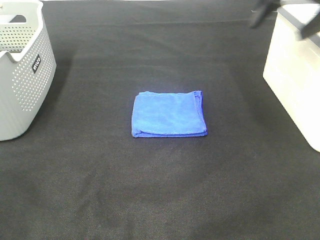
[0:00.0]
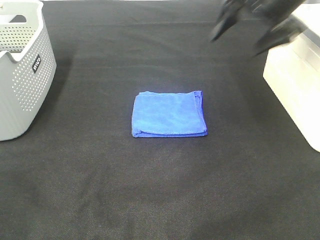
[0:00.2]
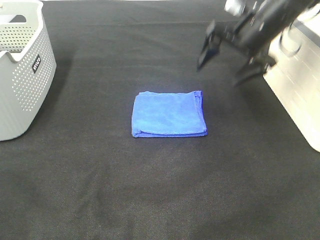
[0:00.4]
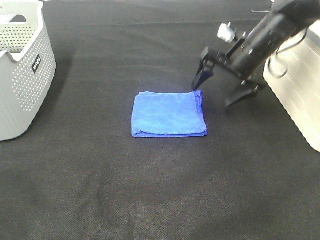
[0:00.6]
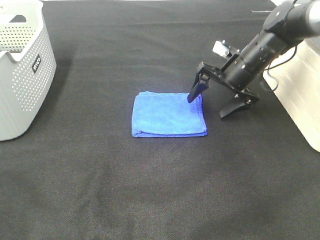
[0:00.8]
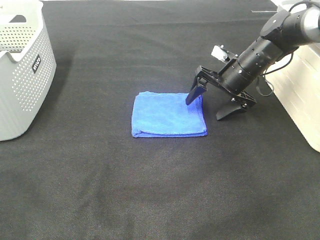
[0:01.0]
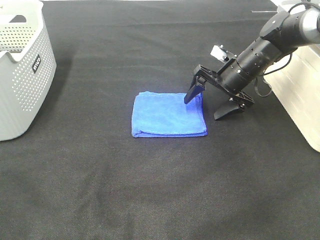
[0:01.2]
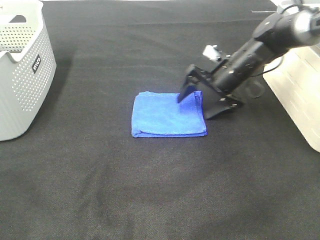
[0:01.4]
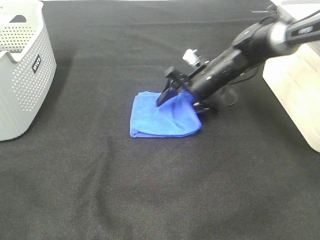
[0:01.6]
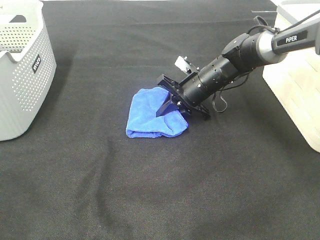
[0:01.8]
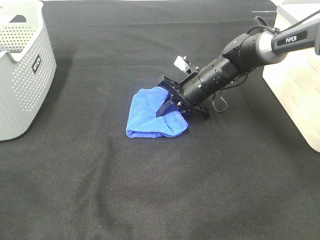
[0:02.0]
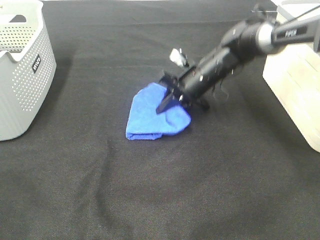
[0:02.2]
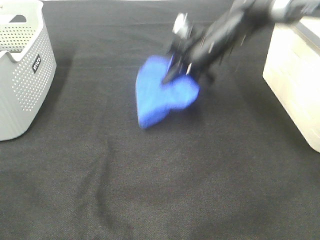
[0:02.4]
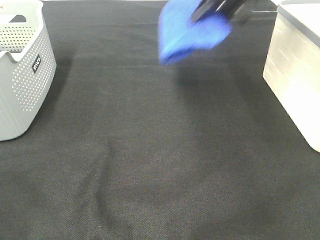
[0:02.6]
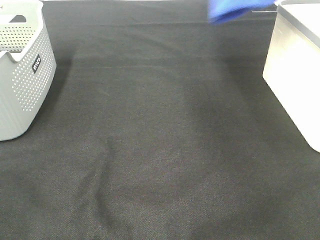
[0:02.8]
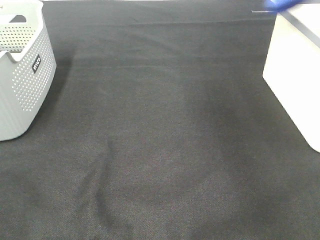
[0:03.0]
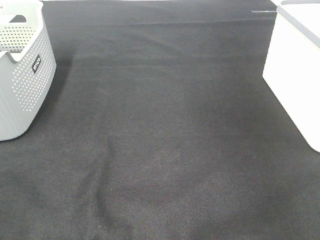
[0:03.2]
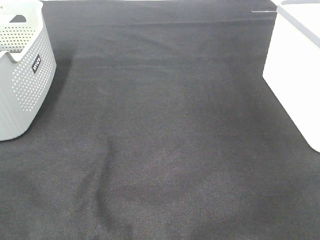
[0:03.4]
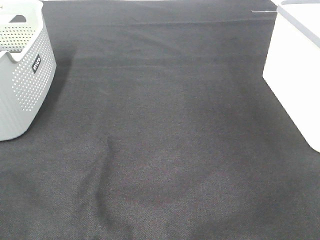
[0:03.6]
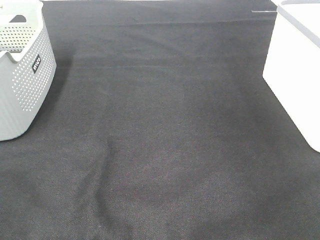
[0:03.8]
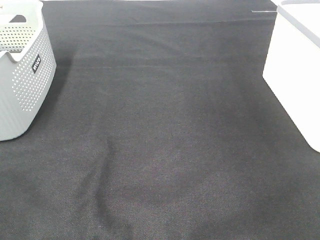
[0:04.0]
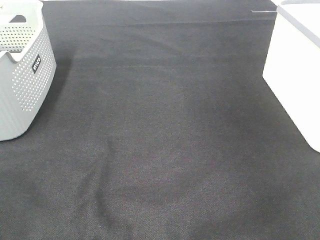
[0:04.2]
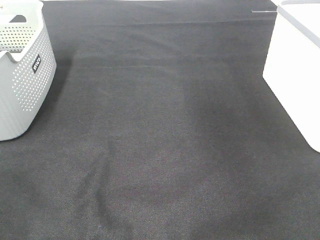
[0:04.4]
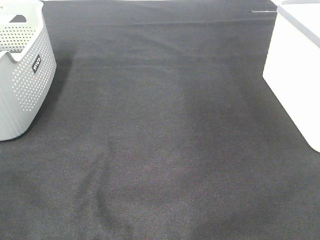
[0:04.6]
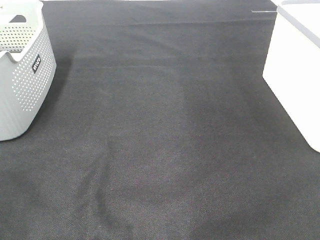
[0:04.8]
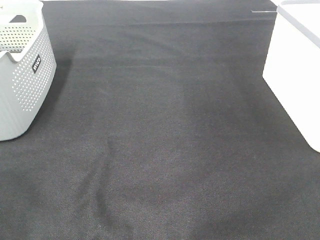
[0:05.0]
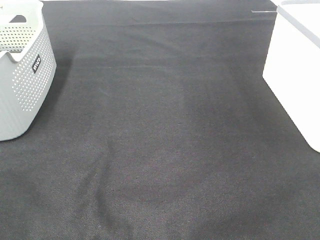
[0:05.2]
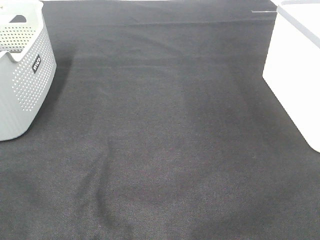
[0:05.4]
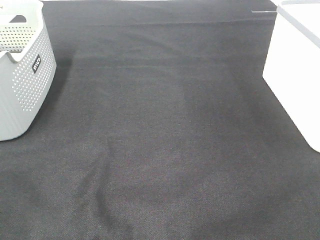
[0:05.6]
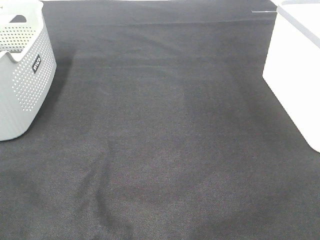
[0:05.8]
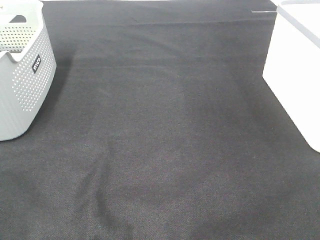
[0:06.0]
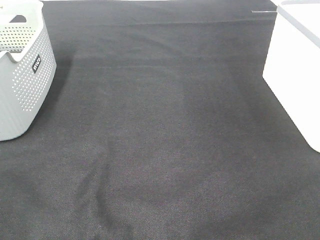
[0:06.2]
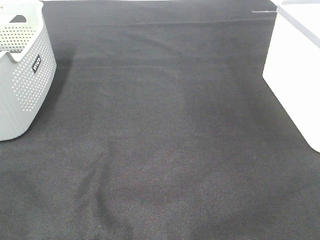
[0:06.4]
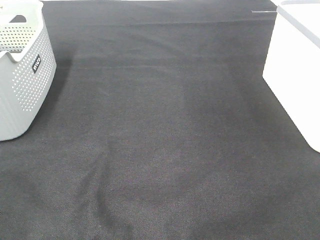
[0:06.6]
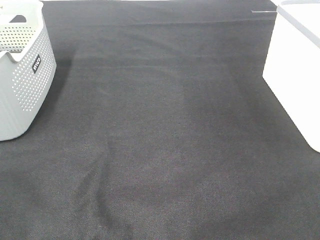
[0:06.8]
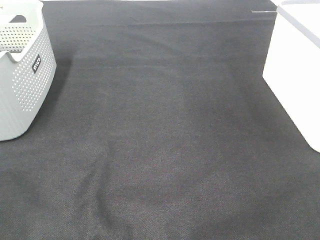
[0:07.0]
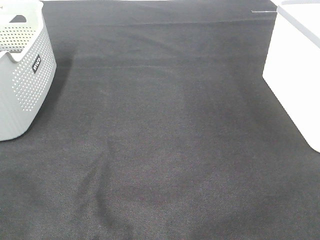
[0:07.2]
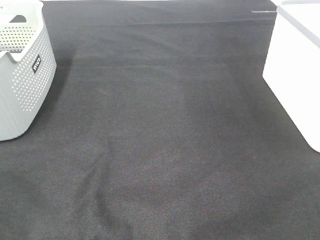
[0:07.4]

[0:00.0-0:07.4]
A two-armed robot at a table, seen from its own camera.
Step, 0:02.0 to 0:03.8: Right hand: place the blue towel in right basket.
0:00.0 to 0:01.4: The right gripper travels downward by some 25 cm.
0:01.4 to 0:03.0: The right gripper is displaced upward and to the right by some 35 cm, and closes.
0:03.0 to 0:04.4: The right gripper moves backward, roughly 5 cm, travels to the right and back again, about 10 cm each way, and opens its fingers.
0:06.0 to 0:07.4: The two grippers keep their place.

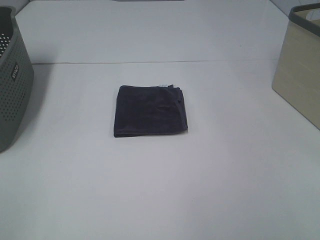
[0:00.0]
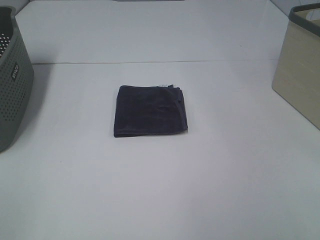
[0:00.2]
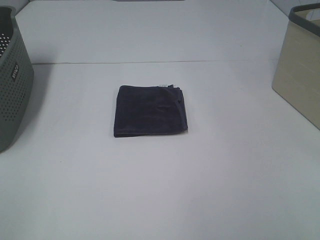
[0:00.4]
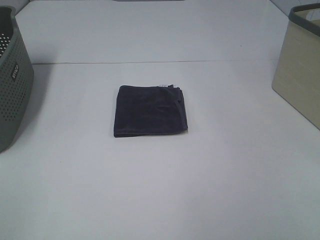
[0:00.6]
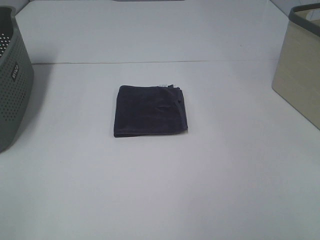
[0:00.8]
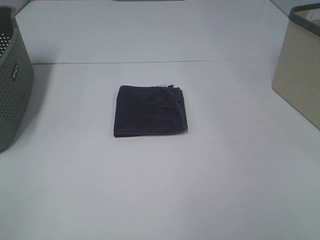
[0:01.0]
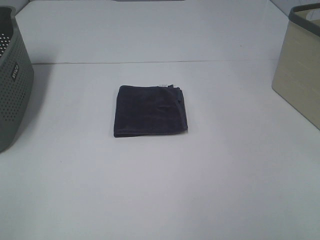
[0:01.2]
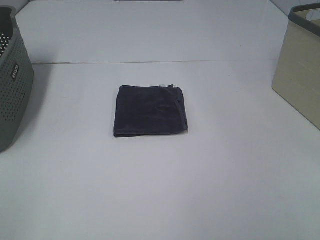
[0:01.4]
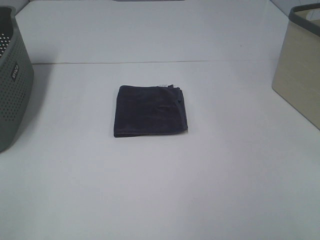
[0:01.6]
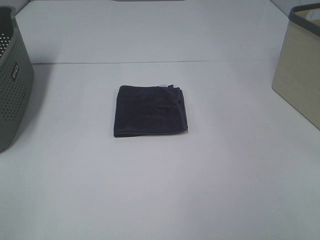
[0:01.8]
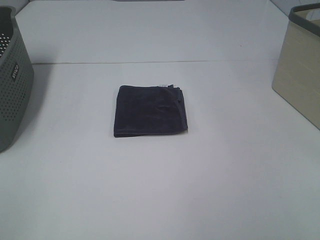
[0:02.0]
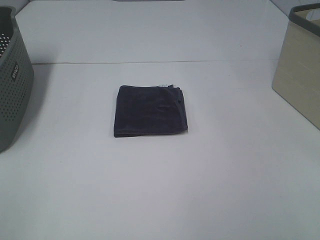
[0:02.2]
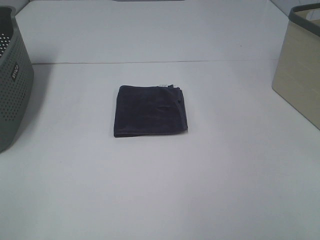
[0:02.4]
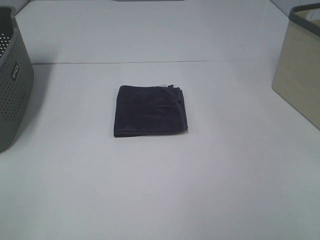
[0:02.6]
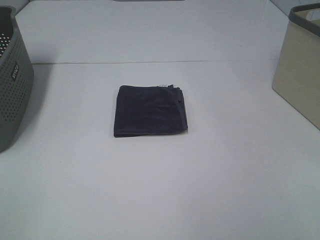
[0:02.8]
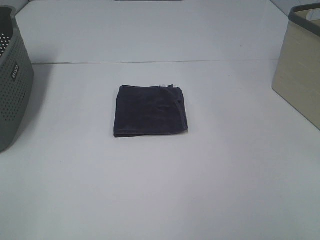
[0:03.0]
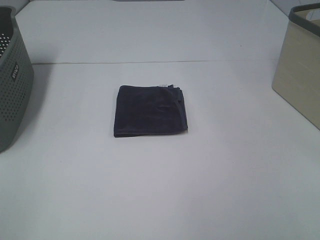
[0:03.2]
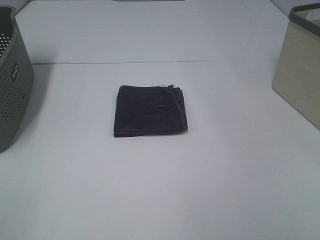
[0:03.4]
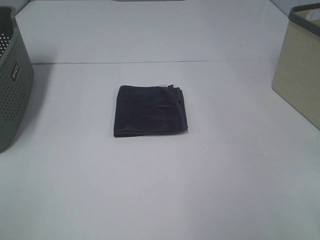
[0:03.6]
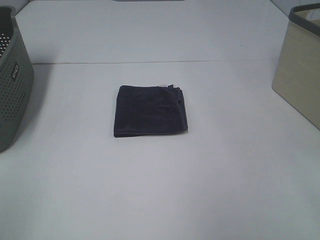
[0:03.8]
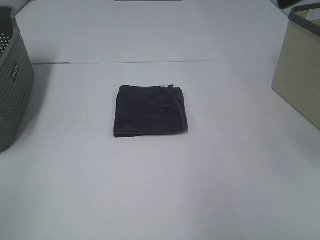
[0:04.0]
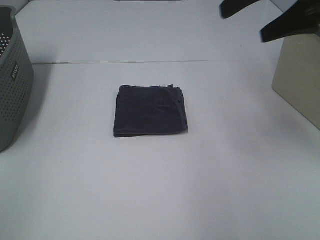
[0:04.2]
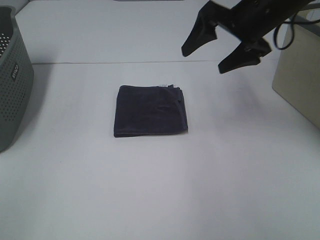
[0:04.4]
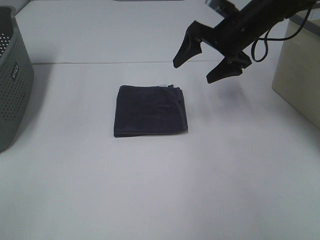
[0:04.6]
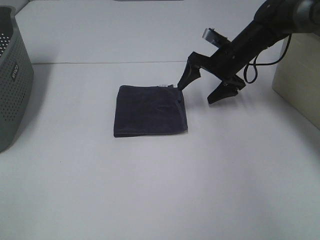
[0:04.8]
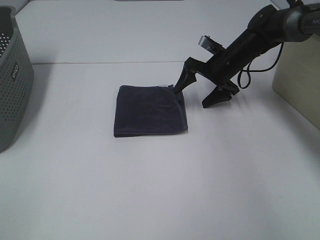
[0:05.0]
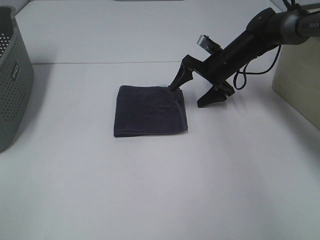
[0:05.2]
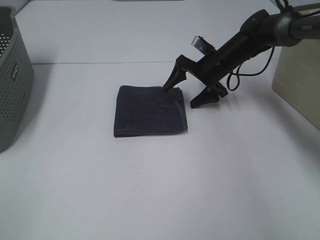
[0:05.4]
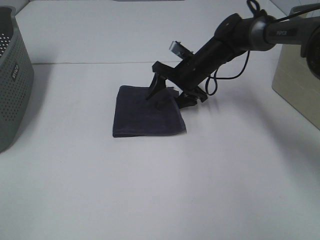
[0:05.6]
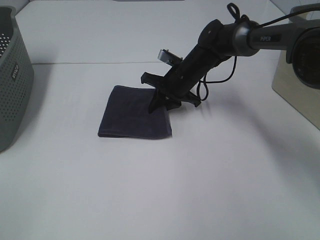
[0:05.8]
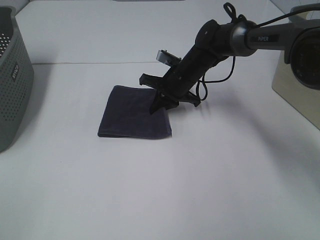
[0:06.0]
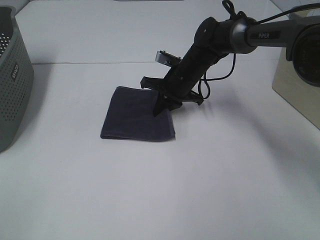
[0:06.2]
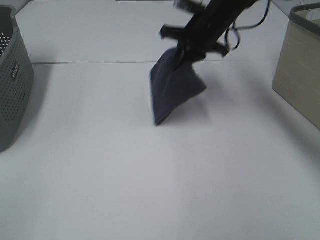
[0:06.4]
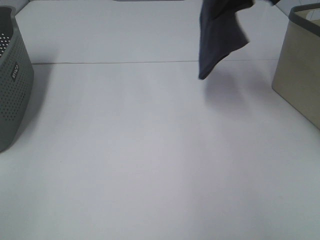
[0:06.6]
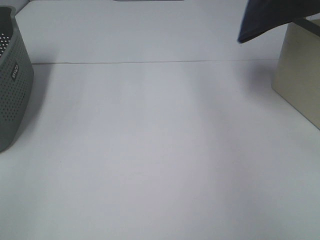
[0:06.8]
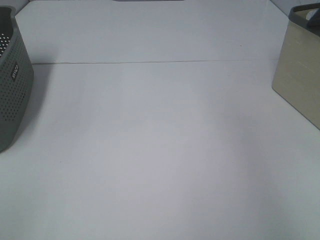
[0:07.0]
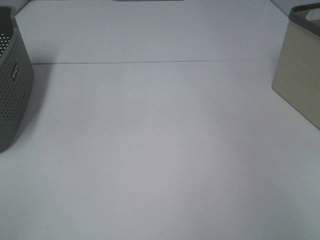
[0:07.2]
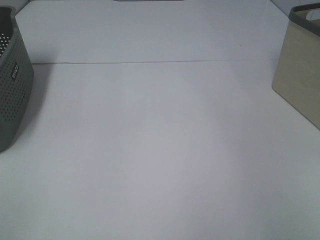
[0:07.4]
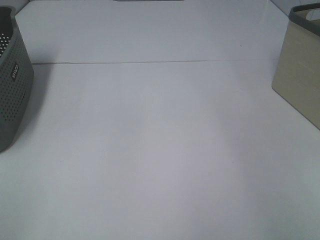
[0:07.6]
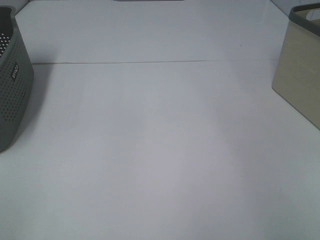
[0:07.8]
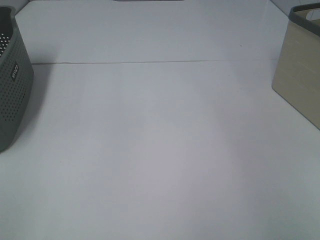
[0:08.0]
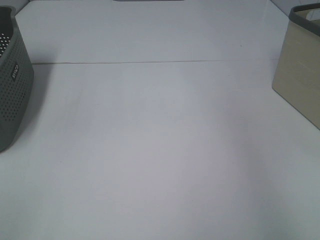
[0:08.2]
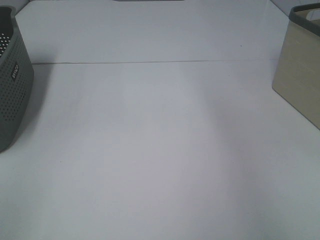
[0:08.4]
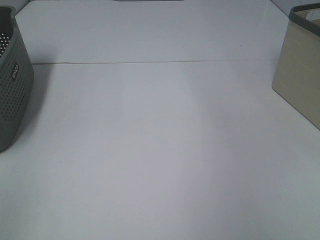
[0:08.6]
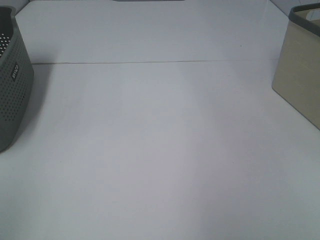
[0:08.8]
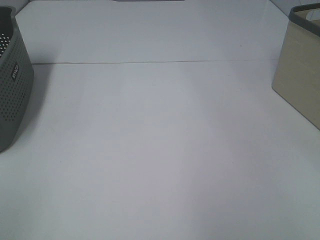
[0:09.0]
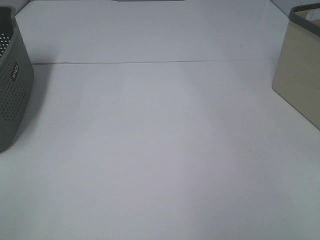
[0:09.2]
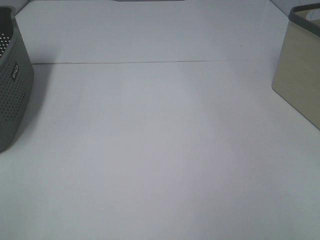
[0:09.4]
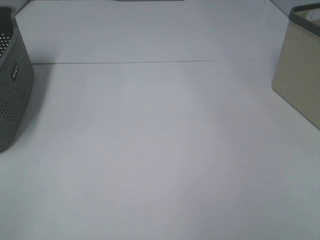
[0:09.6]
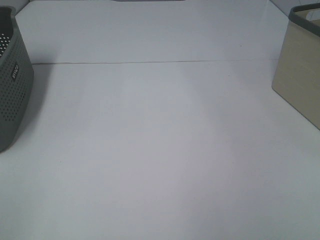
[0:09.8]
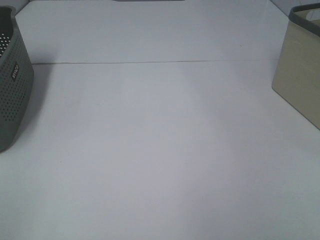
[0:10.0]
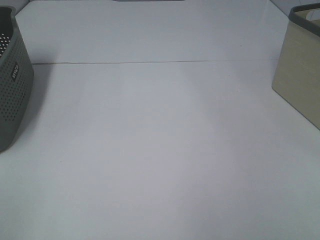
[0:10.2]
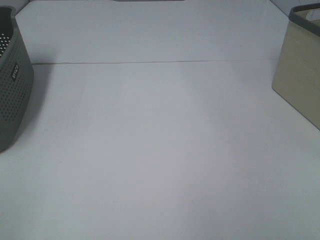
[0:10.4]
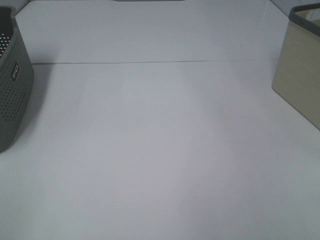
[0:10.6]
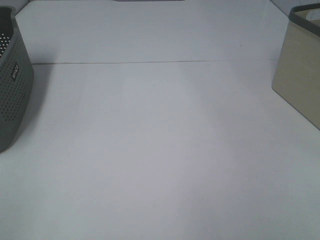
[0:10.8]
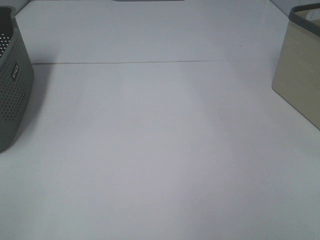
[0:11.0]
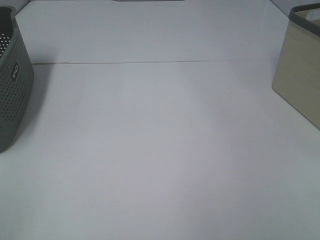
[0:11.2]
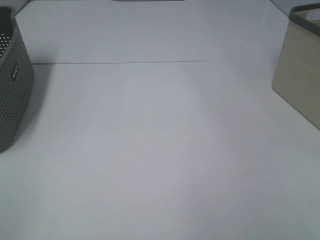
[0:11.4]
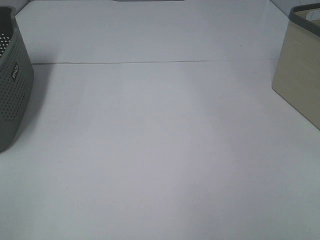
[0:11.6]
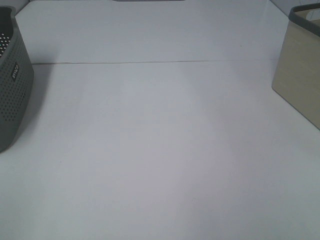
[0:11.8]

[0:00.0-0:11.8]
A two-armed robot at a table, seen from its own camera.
Step, 0:00.0 to 0:05.8: Right hand: grab the folded grey towel.
Step, 0:06.0 to 0:07.8: Right hand: place the grey towel in right basket.
0:00.0 to 0:03.0: Neither gripper changes place.
0:03.0 to 0:04.4: The right gripper shifts approximately 40 cm forward.
0:04.4 to 0:06.0: The right gripper moves downward and to the left, roughly 20 cm, and closes its fingers.
0:06.0 to 0:07.4: The right gripper is displaced to the right and upward by about 50 cm.
0:10.4 to 0:11.8: The two grippers keep their place.

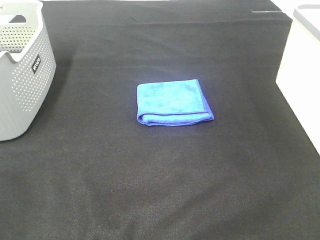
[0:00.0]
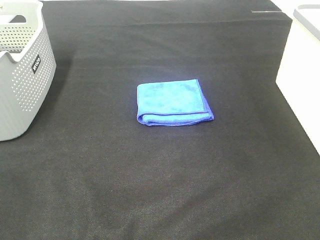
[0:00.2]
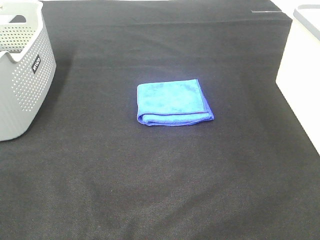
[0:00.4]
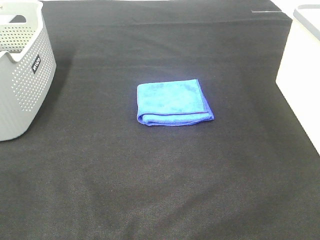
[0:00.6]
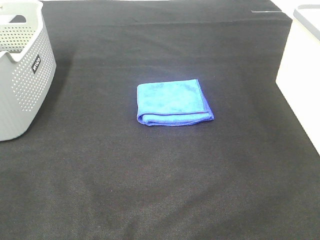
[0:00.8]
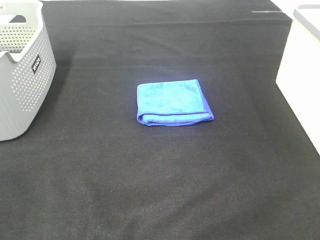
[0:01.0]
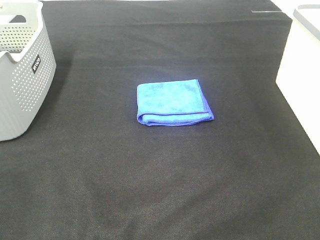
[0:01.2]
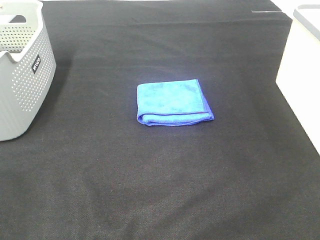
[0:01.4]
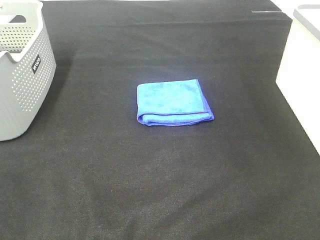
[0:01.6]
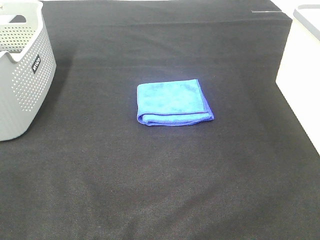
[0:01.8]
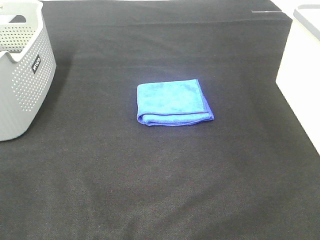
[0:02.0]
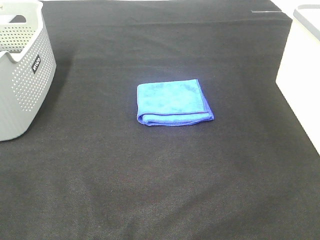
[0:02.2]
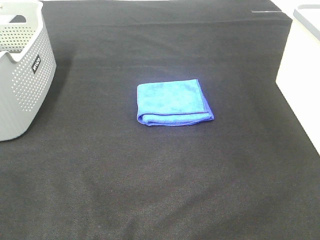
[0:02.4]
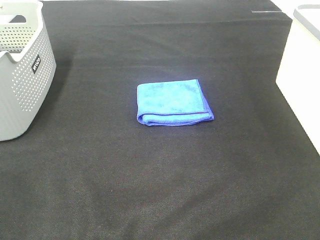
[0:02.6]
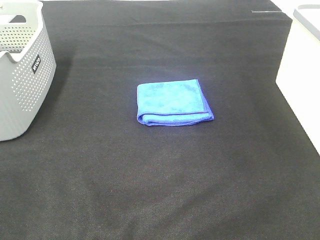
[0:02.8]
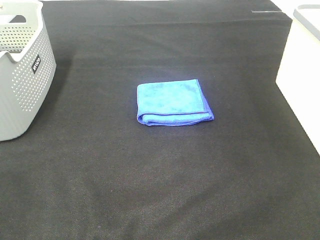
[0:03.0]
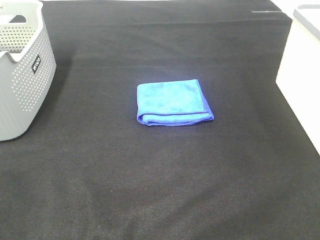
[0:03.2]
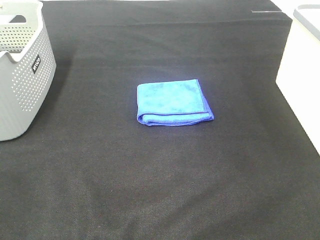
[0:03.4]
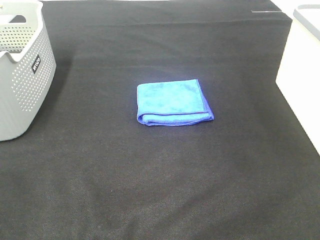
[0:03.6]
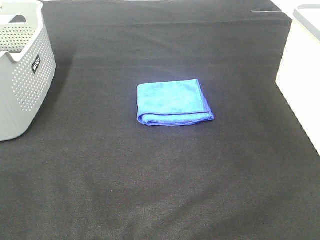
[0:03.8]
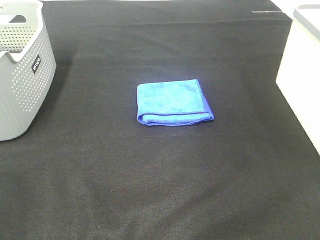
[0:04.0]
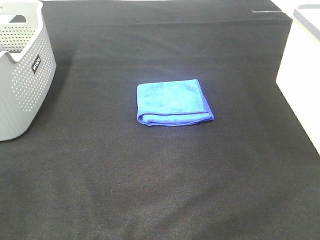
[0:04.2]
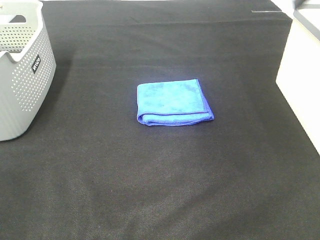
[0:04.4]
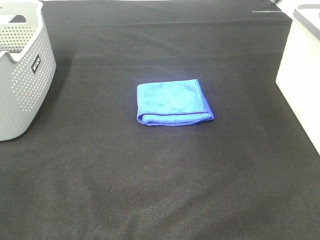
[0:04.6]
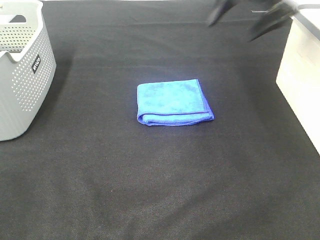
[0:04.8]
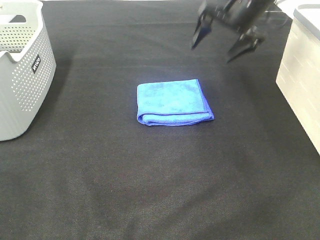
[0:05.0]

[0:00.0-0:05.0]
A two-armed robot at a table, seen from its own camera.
0:00.0 to 0:03.4: Neither gripper changes place.
0:03.4 to 0:05.0: The right gripper heads forward, covering some 50 cm.
